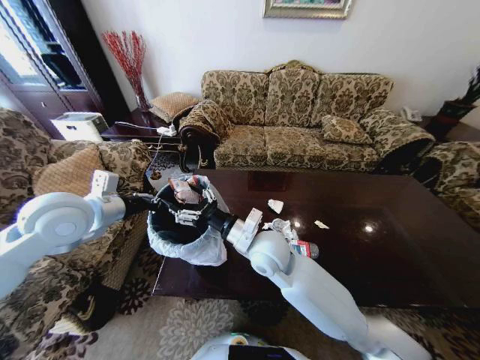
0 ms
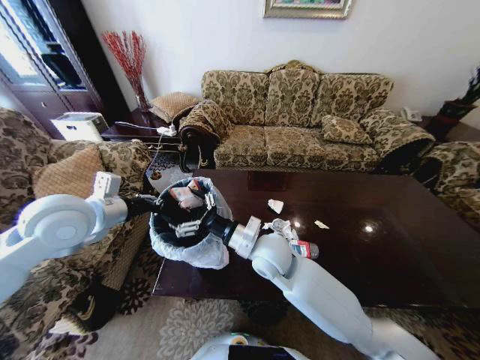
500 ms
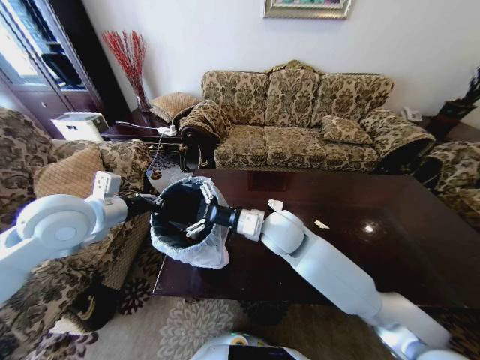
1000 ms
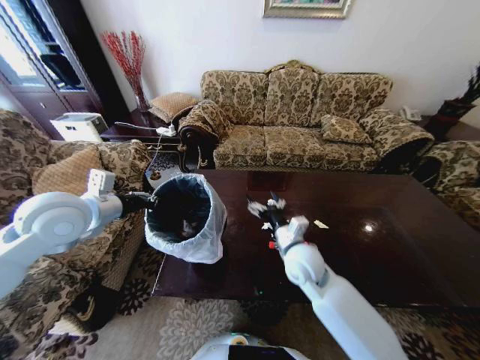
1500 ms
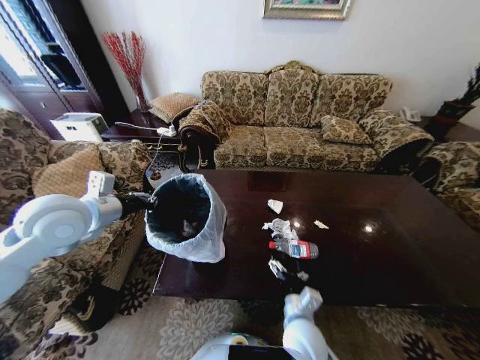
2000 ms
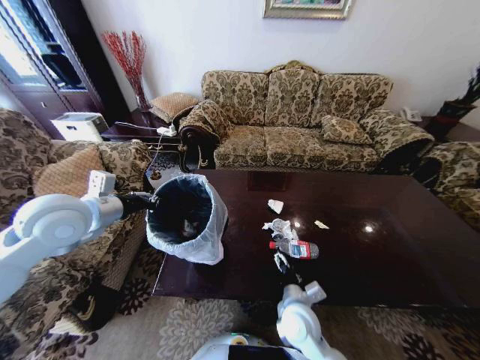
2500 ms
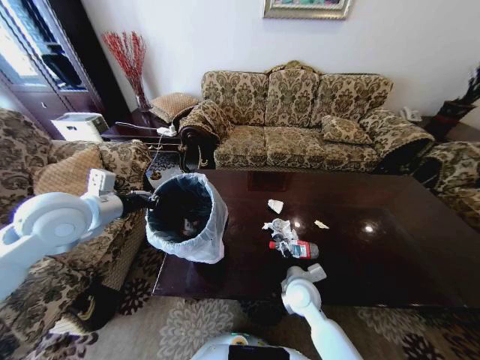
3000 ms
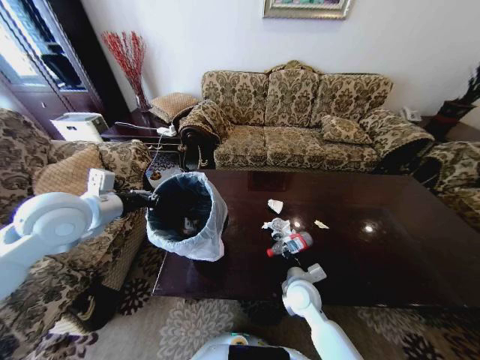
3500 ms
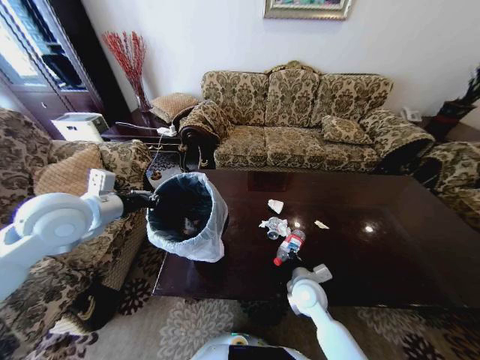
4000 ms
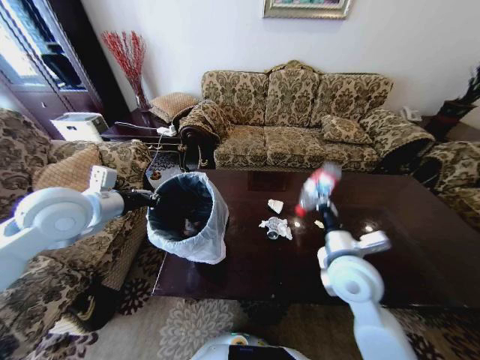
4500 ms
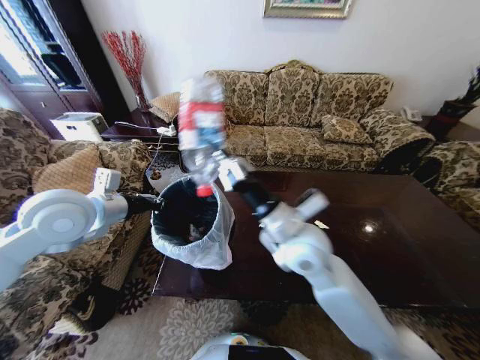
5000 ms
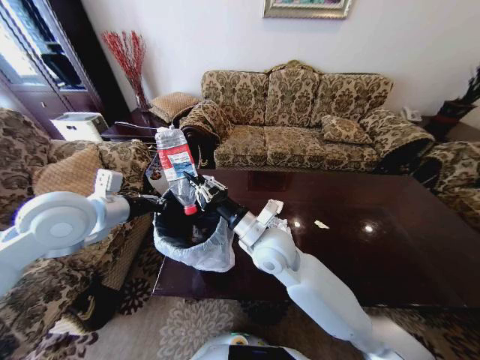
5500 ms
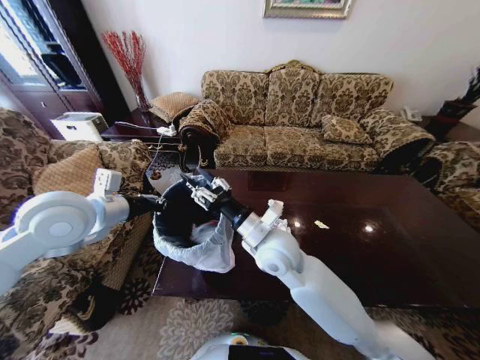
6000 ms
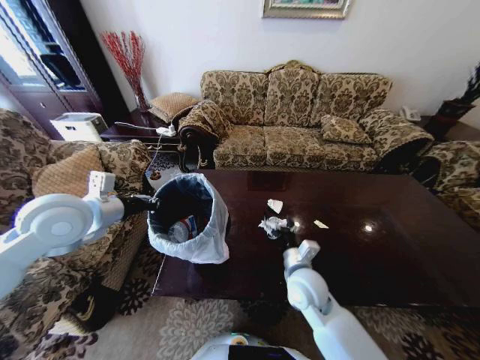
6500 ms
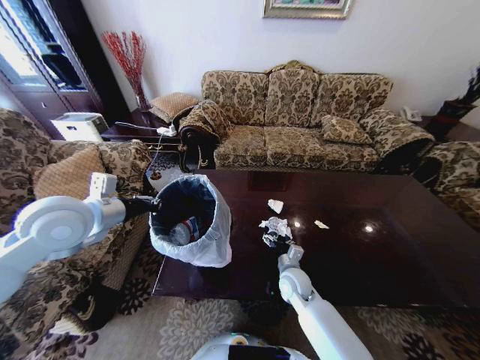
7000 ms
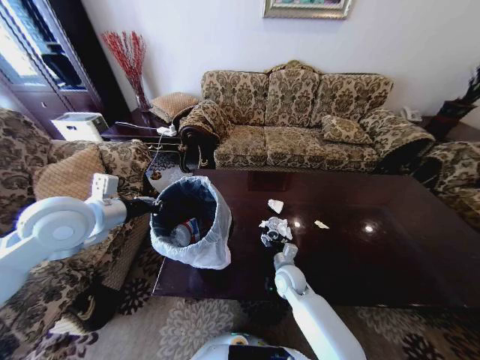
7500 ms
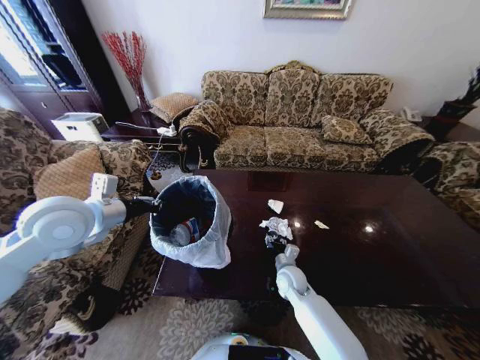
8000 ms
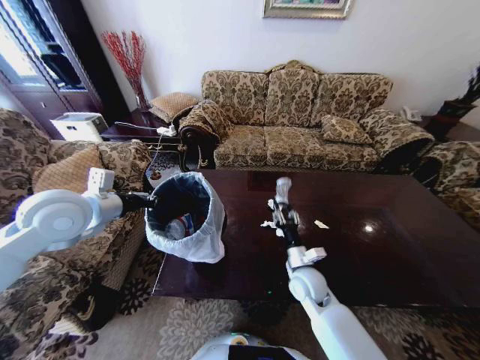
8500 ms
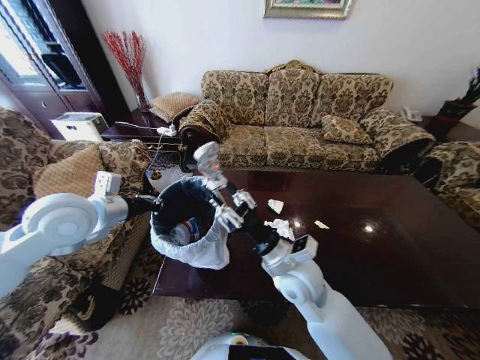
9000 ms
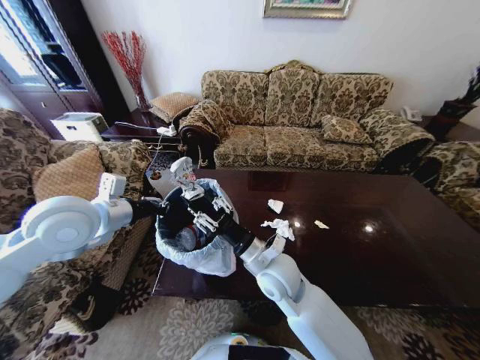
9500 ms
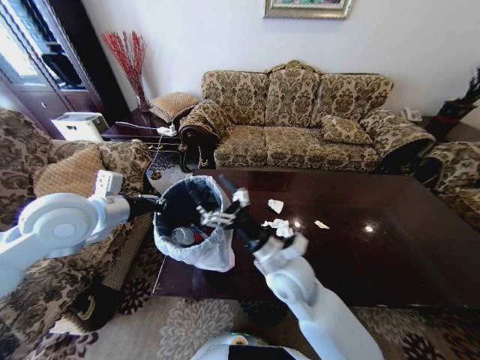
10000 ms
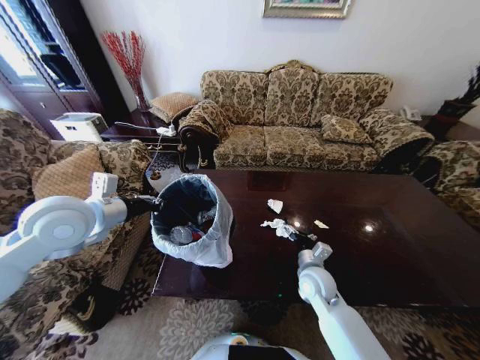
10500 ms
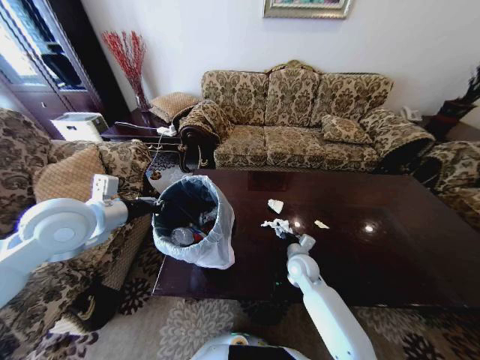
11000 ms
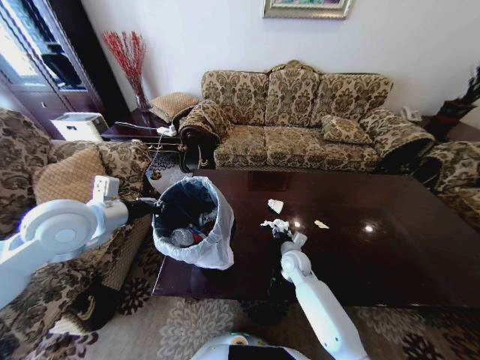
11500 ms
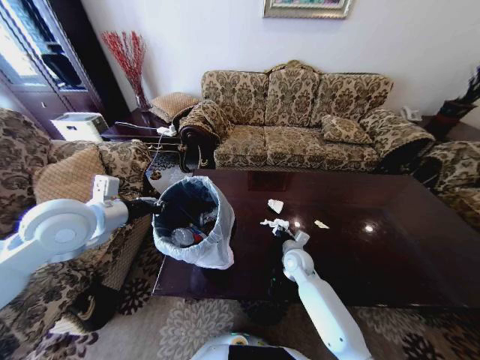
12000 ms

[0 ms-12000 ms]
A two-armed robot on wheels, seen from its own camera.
Task of the whole recording: Move to the front of the table and place the trash on the table into the trash bin.
0 ms to 2000 ms: The right gripper goes approximately 25 cm downward, backward and to the right.
2000 ms to 4000 ms: The right gripper goes roughly 10 cm forward, and closes up.
4000 ms to 6000 ms: The right gripper shifts roughly 25 cm upward and to the left, and opens its fingers.
6000 ms to 8000 ms: The right gripper heads downward, covering roughly 25 cm, and opens and closes again.
8000 ms to 10000 ms: The right gripper moves upward, about 20 cm, and opens up.
10000 ms to 12000 ms: The right gripper heads downward, forward and to the right, covering approximately 25 cm, and closes up.

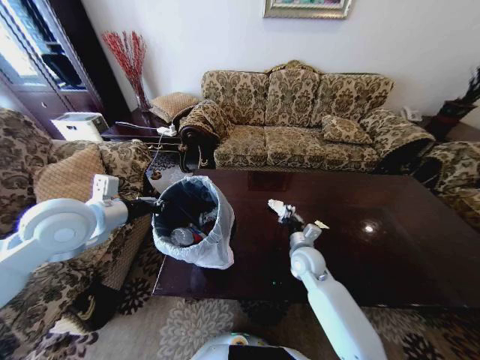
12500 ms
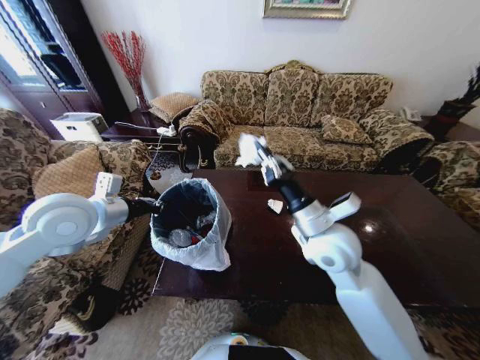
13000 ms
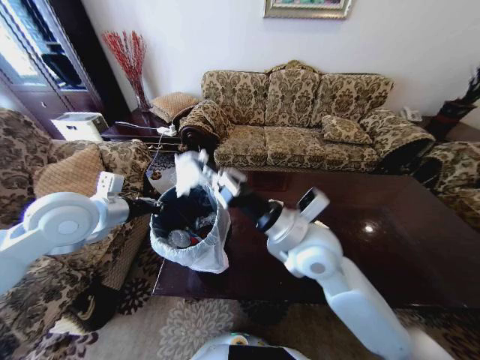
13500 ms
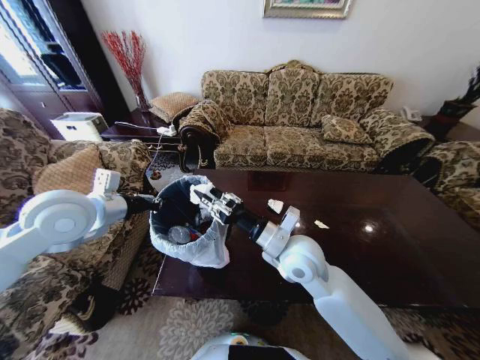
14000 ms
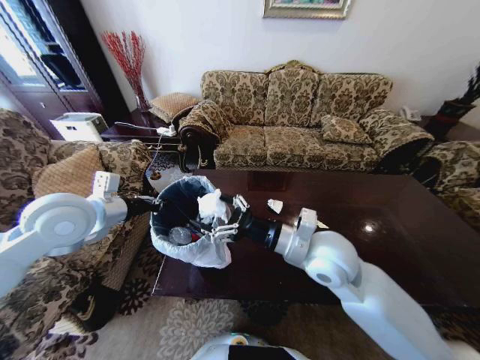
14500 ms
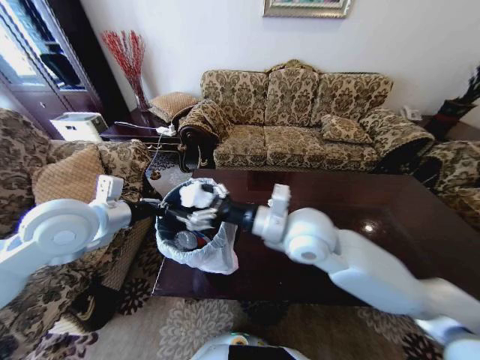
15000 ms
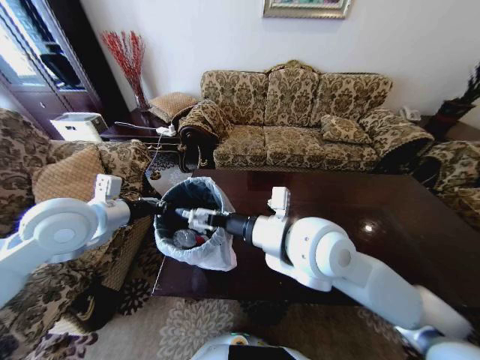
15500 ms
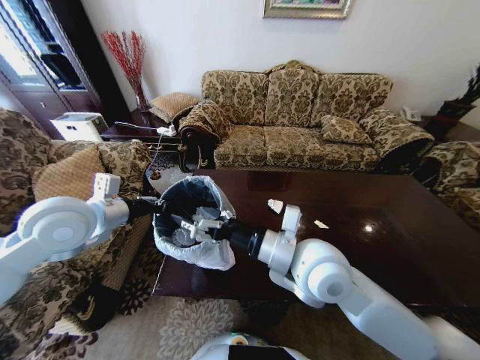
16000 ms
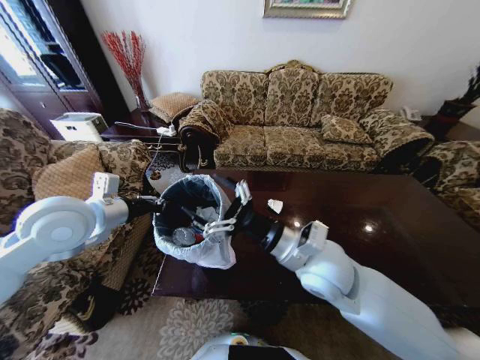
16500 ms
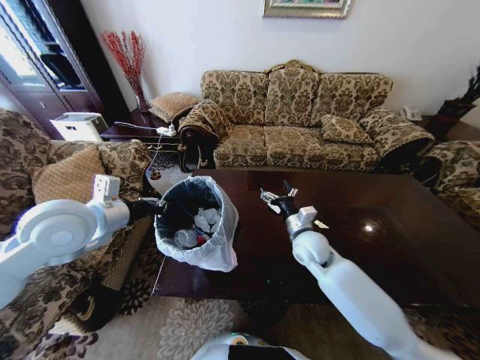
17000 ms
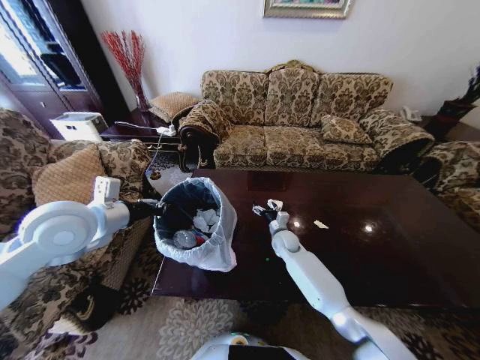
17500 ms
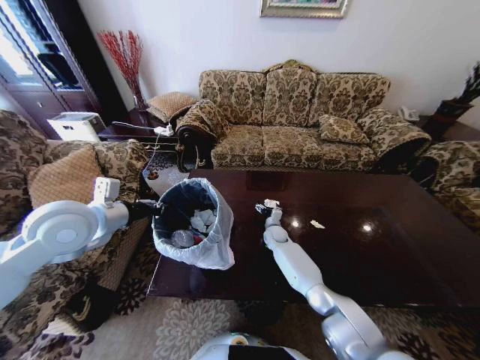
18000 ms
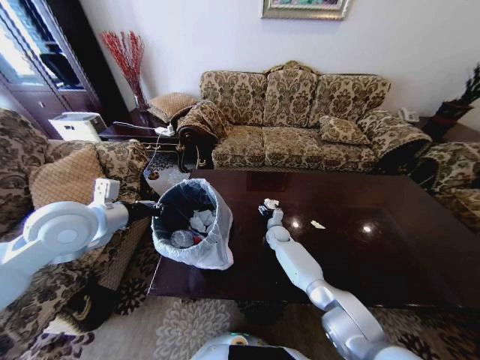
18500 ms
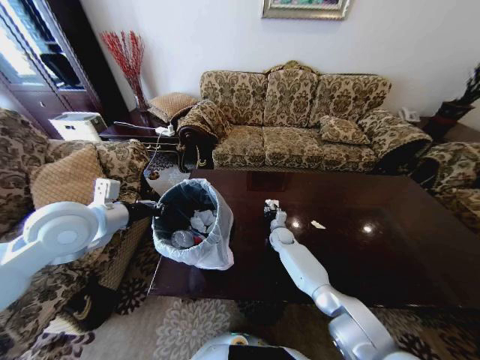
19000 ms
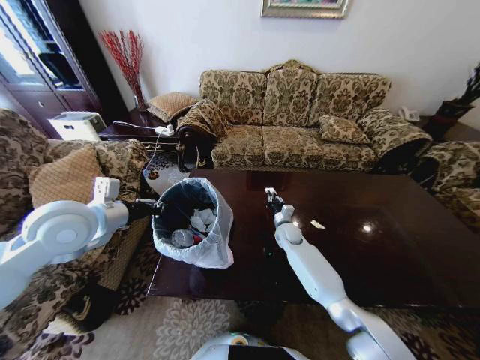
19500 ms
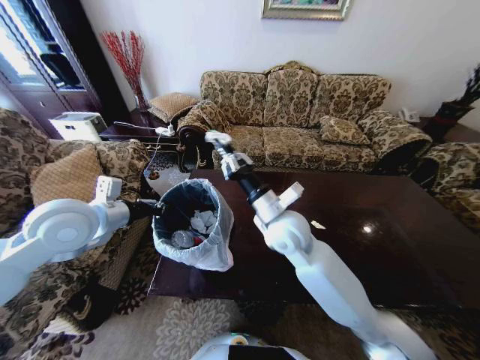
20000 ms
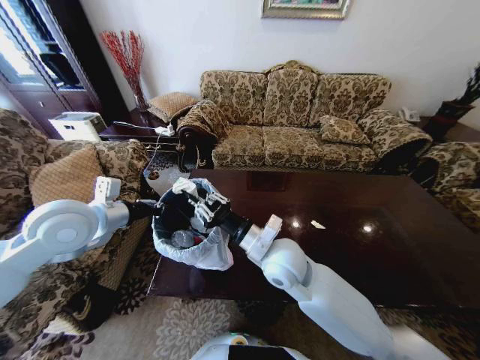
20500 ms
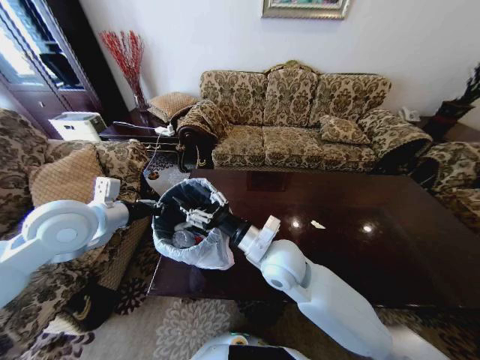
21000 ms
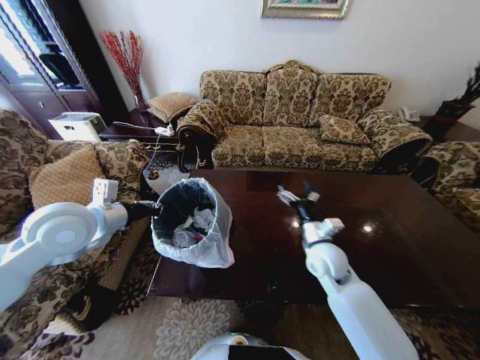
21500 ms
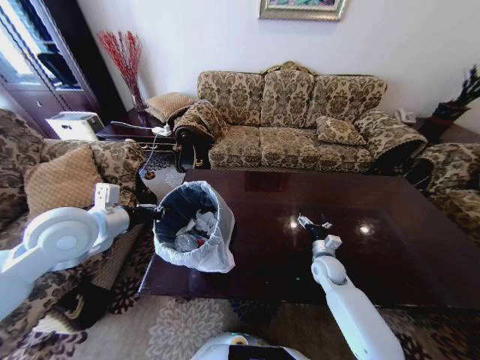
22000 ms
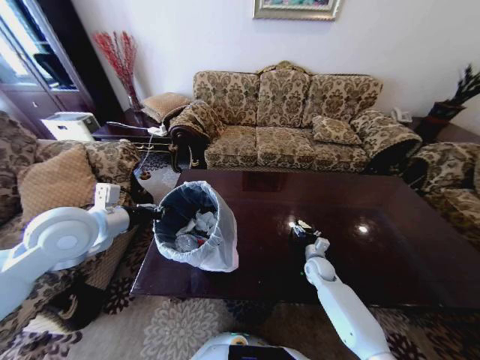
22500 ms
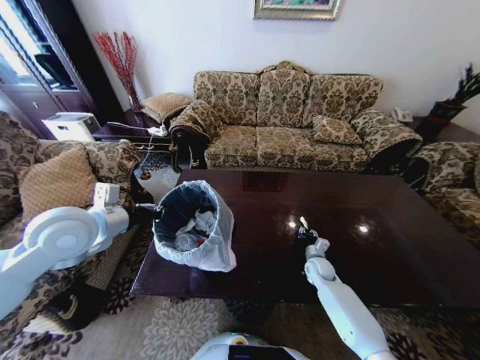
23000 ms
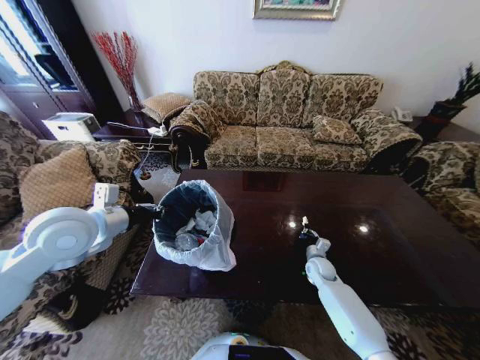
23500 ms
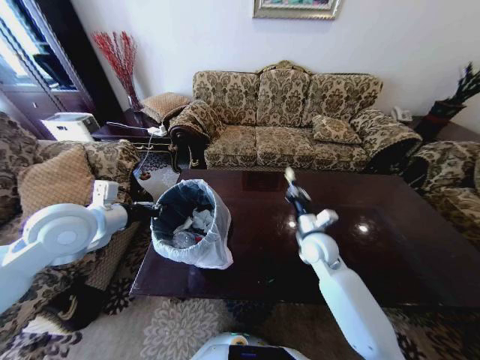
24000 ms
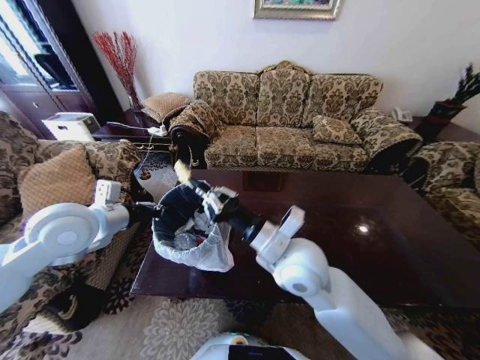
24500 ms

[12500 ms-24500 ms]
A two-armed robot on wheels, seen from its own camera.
Task of the whole recording: Move to the front of the table and place the trash on the table into the trash bin.
12500 ms to 14500 ms: The right gripper goes up and down, about 20 cm each way, reversing 2 times, and opens.
16500 ms to 18500 ms: The right gripper travels downward and forward by roughly 40 cm.
18500 ms to 20500 ms: The right gripper is displaced upward and backward by some 35 cm, and closes its fingers.
20500 ms to 22500 ms: The right gripper shifts approximately 35 cm downward and to the right, and opens up.
22500 ms to 24500 ms: The right gripper travels upward, to the left and backward by approximately 40 cm, and closes its fingers.

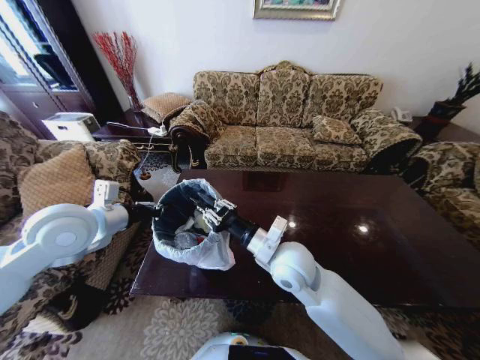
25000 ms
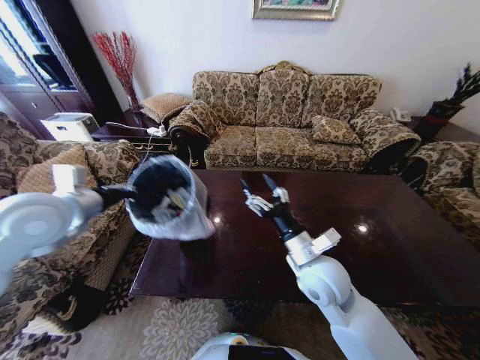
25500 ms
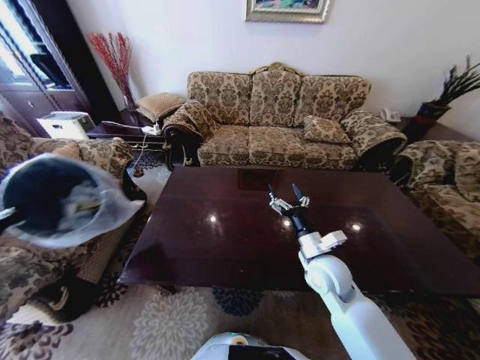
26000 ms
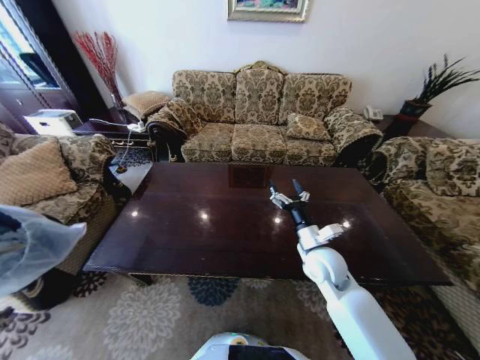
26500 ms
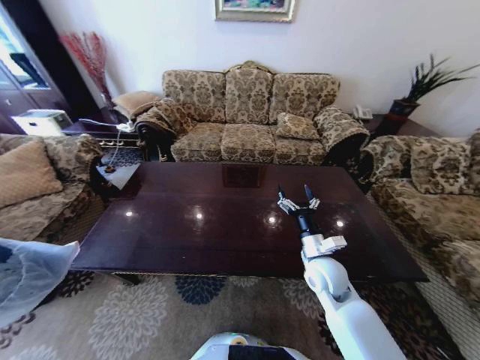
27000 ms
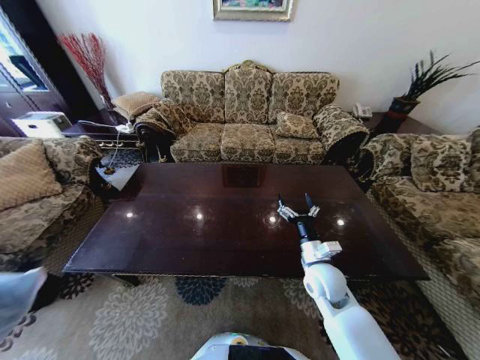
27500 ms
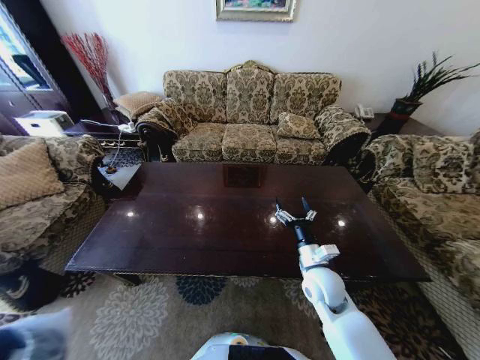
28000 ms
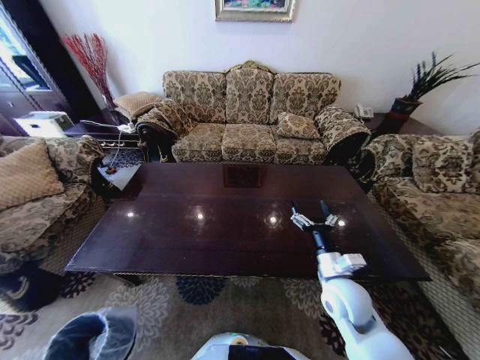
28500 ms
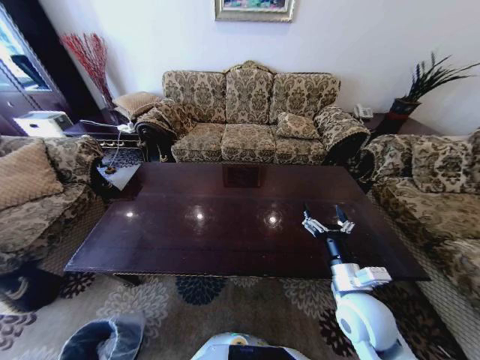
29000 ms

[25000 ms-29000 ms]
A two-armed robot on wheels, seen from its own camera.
Task of the whole recording: Move to the front of the table and place the trash on the table into the trash bin.
25000 ms to 27000 ms: The left gripper shifts roughly 30 cm backward, to the left and downward. Meanwhile the right gripper moves to the right and downward, roughly 15 cm, and opens.
27000 ms to 29000 ms: The right gripper heads backward, covering about 10 cm, while the left gripper moves downward, approximately 40 cm.
